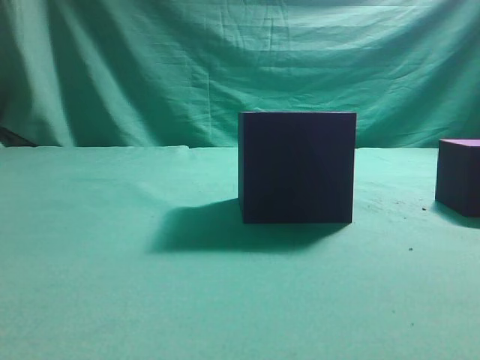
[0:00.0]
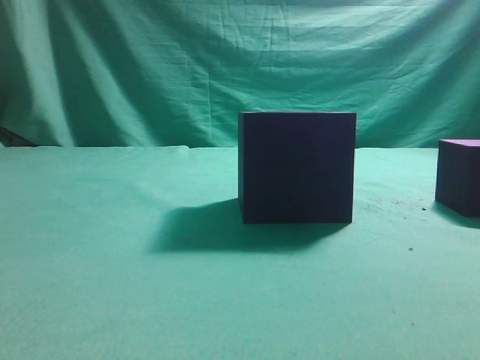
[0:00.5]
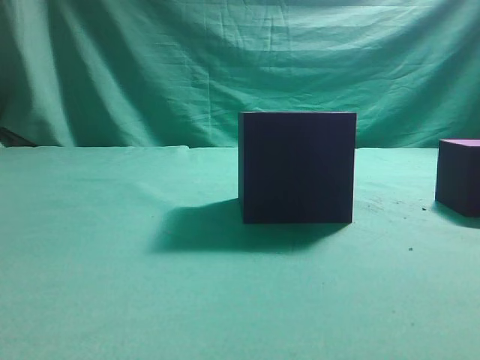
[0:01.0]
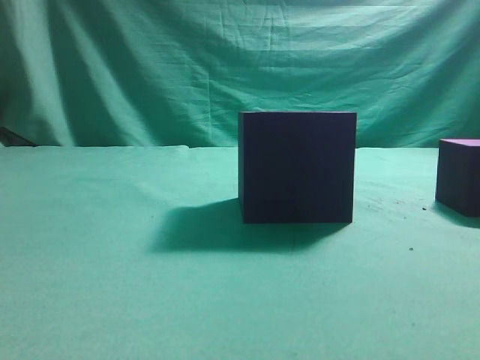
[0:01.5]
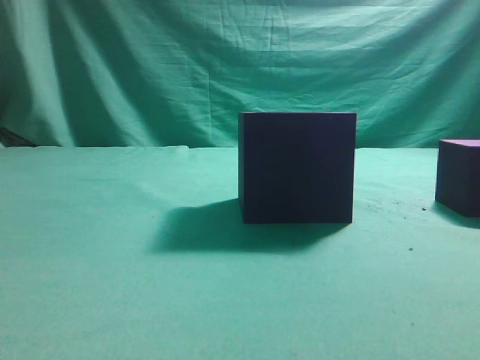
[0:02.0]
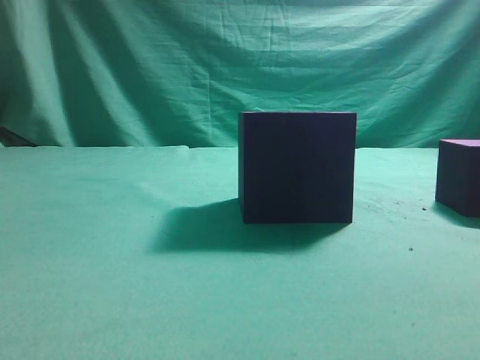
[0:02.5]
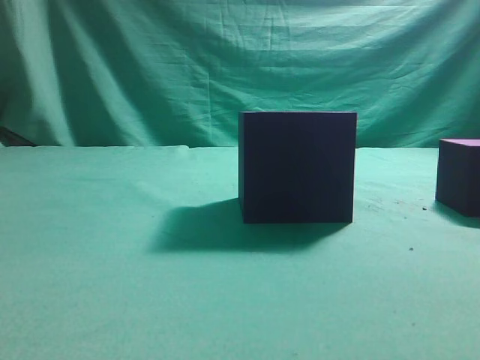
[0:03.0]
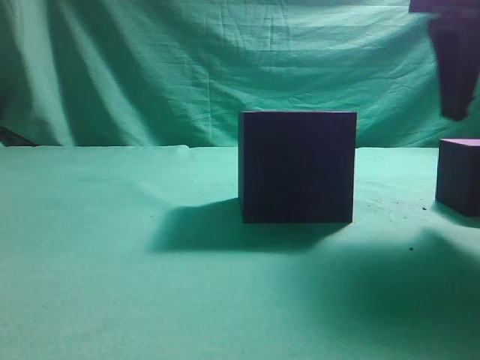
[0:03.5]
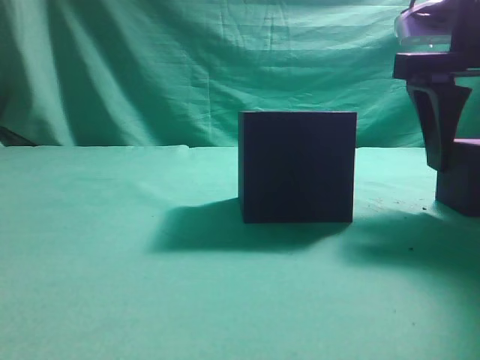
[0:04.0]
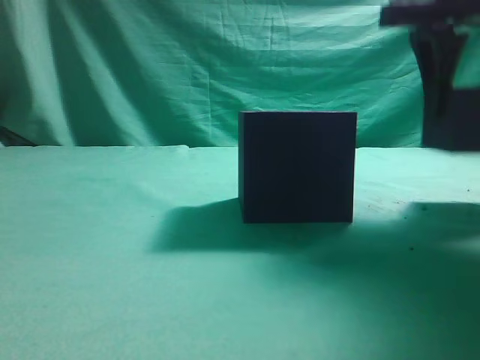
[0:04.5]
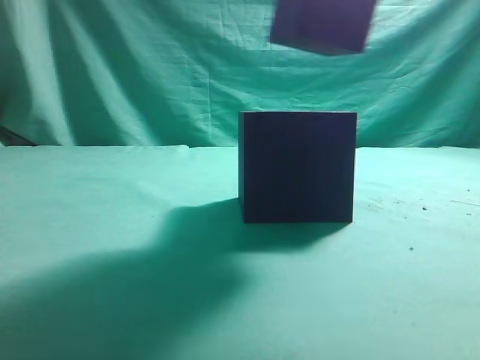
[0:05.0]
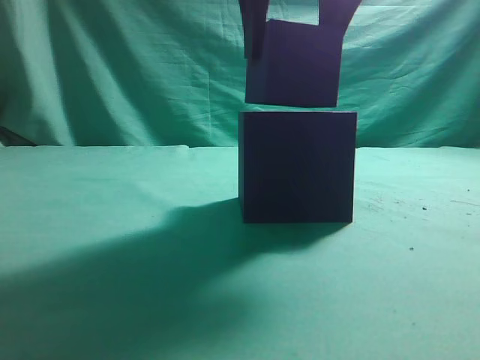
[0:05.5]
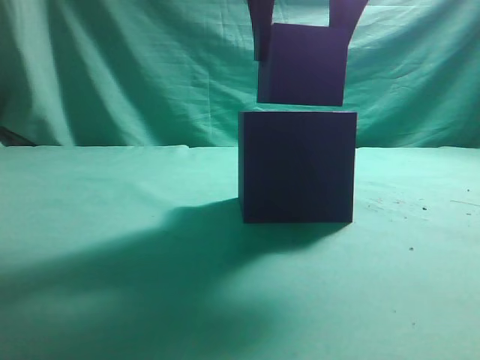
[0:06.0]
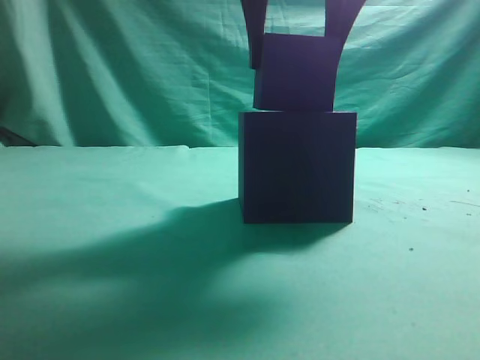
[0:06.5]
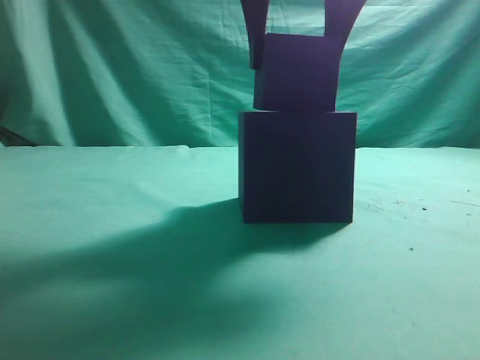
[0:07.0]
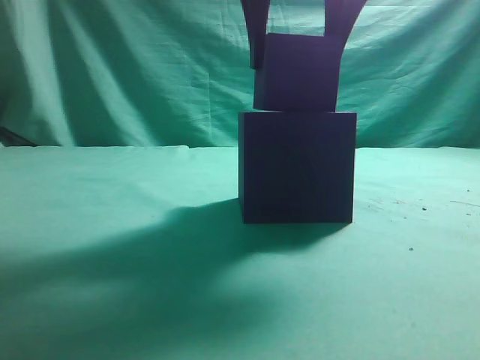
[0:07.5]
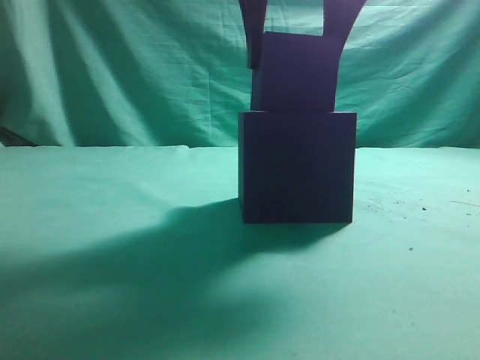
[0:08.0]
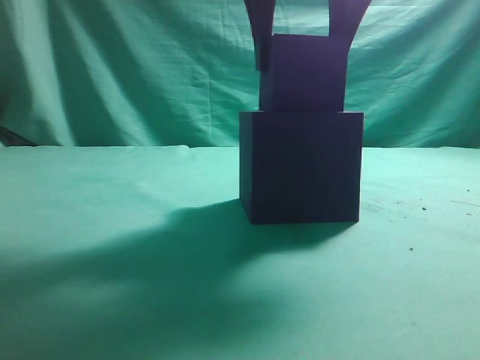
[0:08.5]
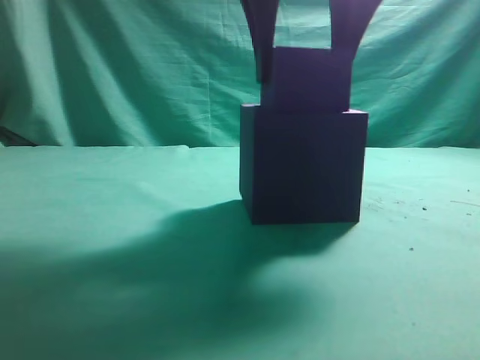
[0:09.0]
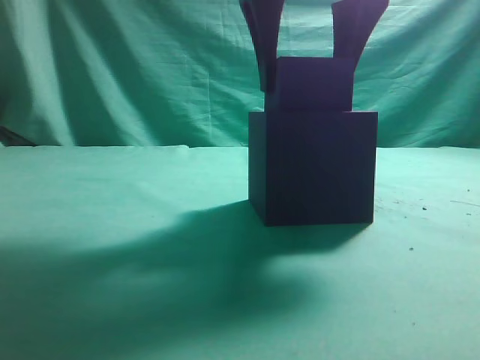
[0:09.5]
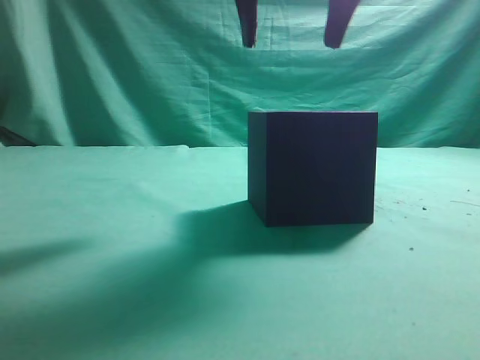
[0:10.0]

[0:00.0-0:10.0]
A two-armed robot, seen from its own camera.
Task of the whole recording: pick up the cube block and place it into the cube groove.
Step, 0:00.0 to 0:04.5: Grasp the cube.
Step, 0:05.0 to 0:09.5: Place cube into the cube-shaped recess.
0:02.0 to 0:04.0: The right gripper moves forward, roughly 25 cm, and opens up.
0:04.0 to 0:06.0: The right gripper goes some 15 cm to the left and upward.
0:06.0 to 0:08.0: The two grippers keep their place.
